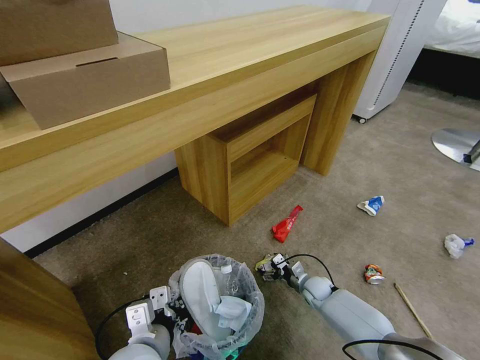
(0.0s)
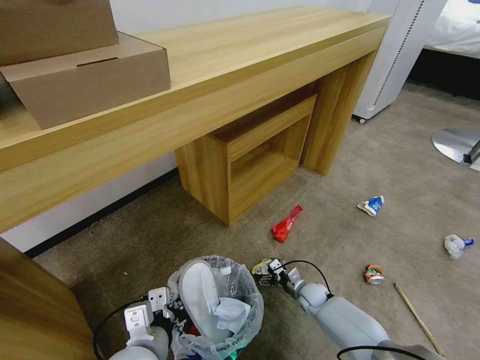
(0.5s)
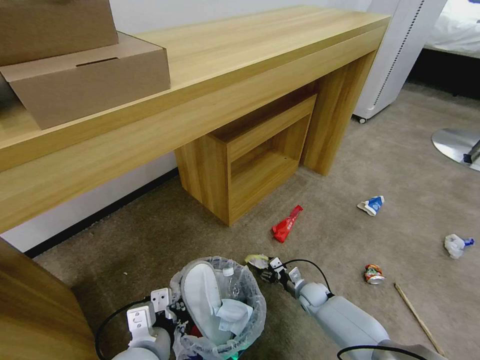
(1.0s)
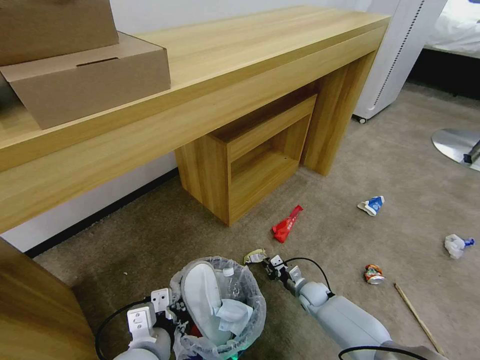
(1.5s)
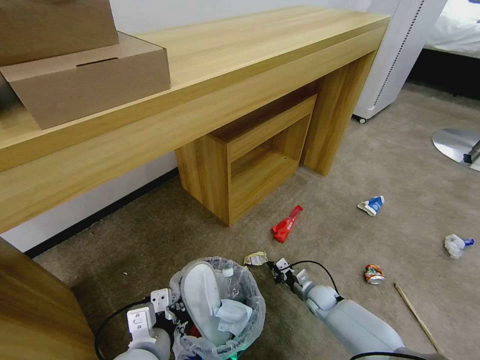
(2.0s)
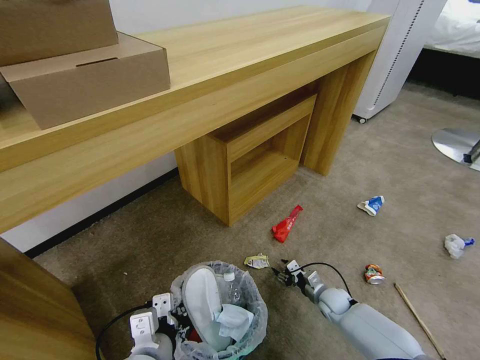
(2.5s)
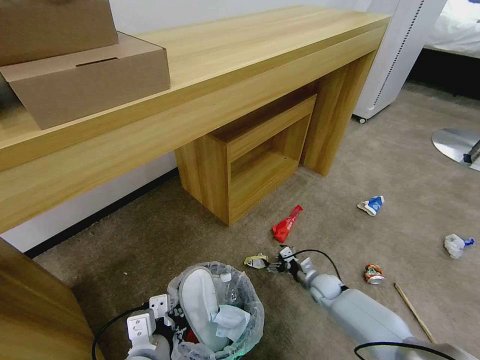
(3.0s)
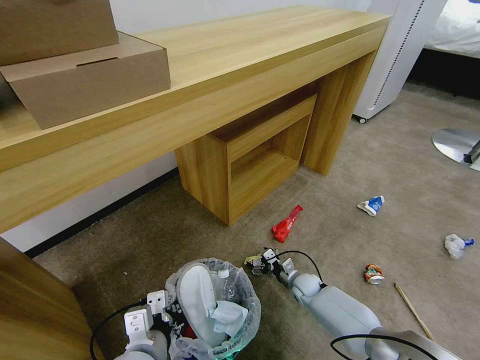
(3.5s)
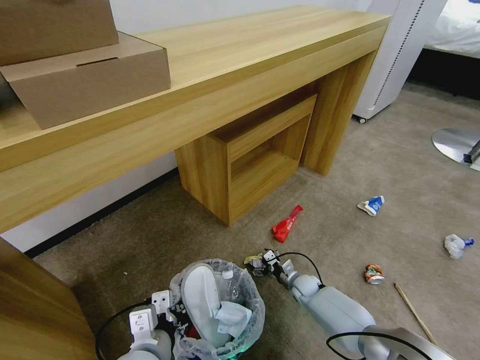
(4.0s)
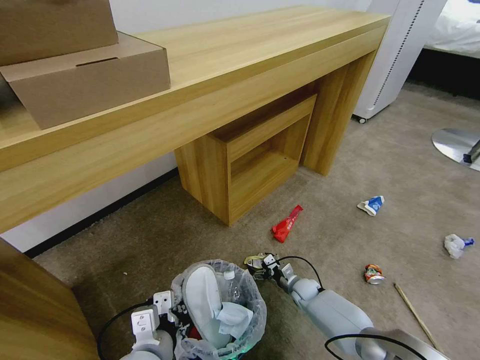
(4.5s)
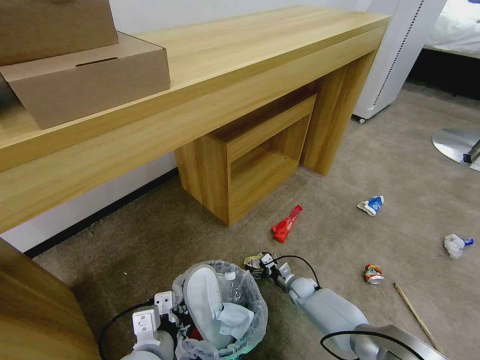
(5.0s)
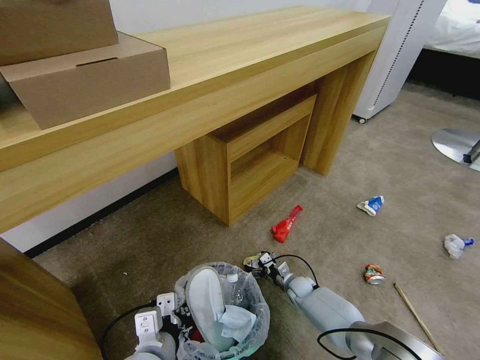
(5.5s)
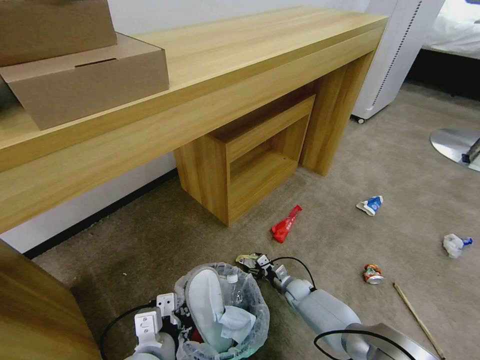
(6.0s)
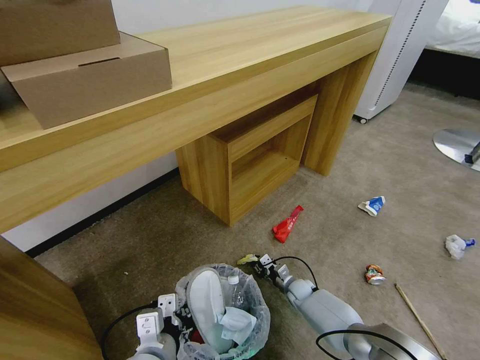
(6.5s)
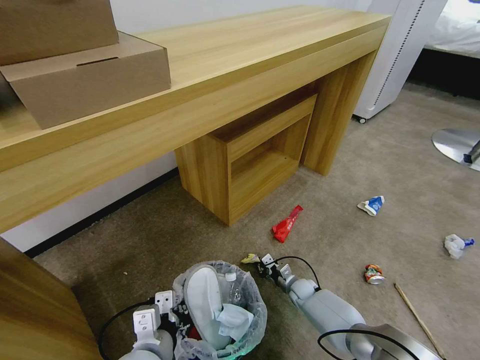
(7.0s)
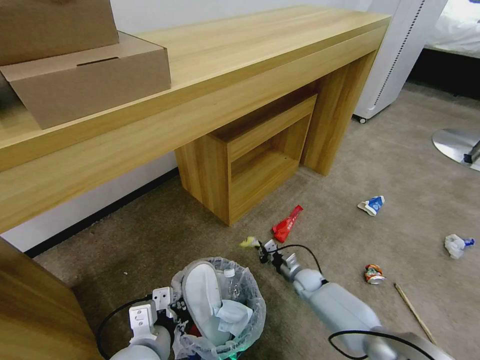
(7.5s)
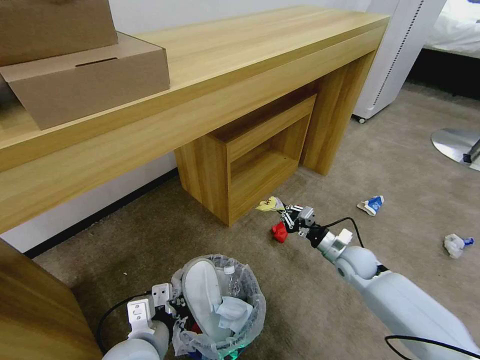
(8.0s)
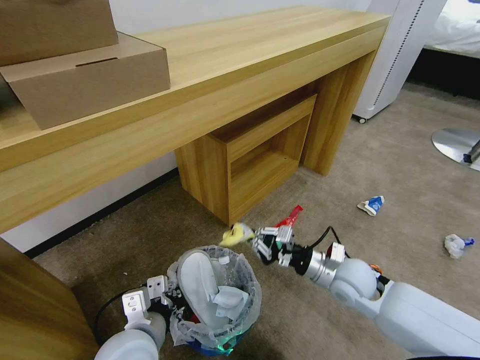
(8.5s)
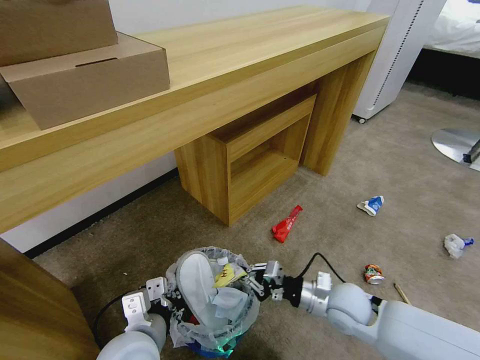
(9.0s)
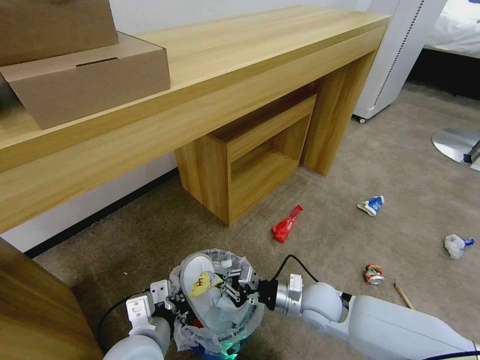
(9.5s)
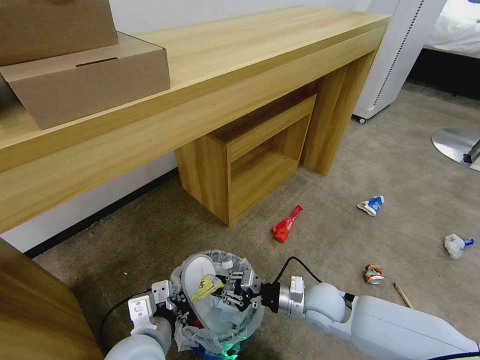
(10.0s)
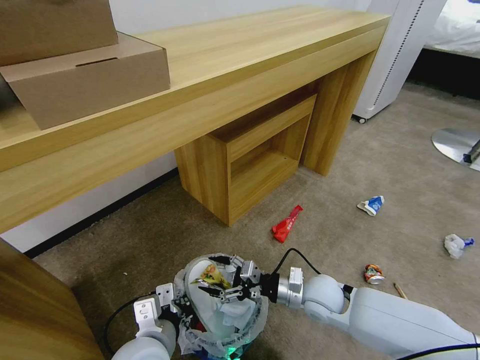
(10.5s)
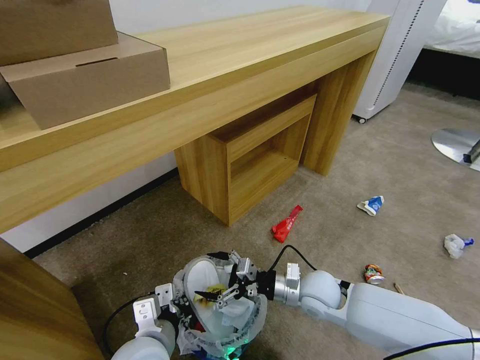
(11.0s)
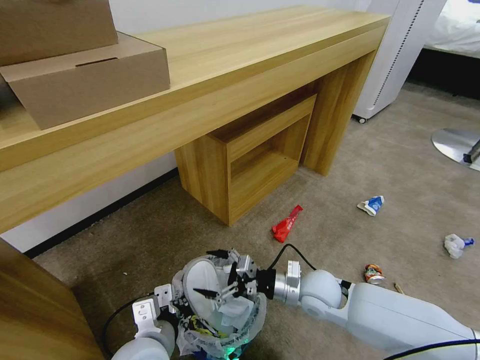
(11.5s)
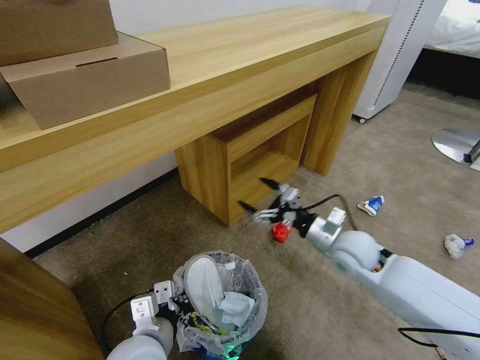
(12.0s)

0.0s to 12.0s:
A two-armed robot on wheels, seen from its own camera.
Task of the whole recording: Pick up the trash bin and place the garbage on the floor into it.
0.0s to 2.0s: The right gripper closes its fingers.
2.0s to 4.0s: The right gripper opens its fingers.
4.0s to 6.0s: The grippers stay close to where they were, moving slightly.
6.0s to 8.0s: The right gripper heads upward and to the right, covering about 25 cm, and closes.
8.0s to 10.0s: The right gripper goes roughly 15 cm to the left and backward.
10.0s to 12.0s: The right gripper shifts about 15 cm upward, forward and to the right, and opens up.

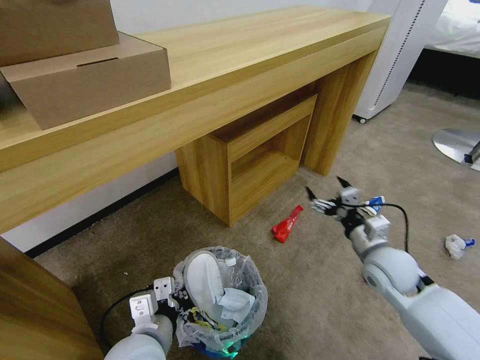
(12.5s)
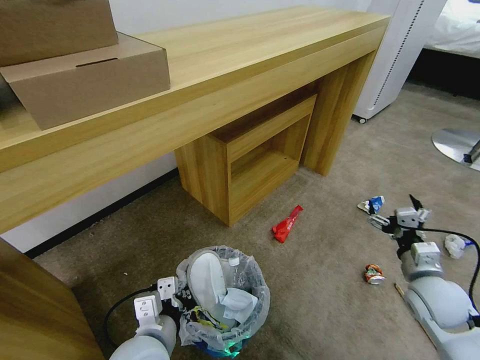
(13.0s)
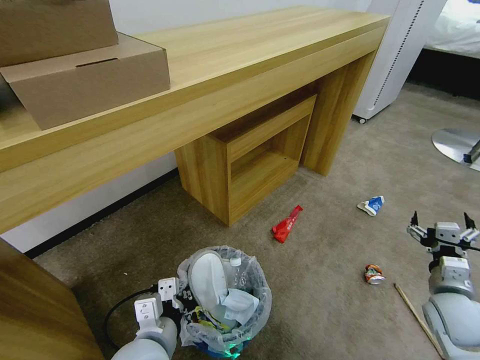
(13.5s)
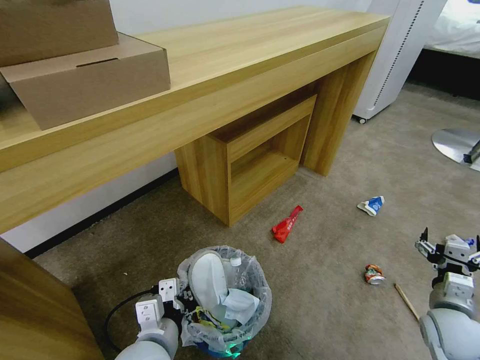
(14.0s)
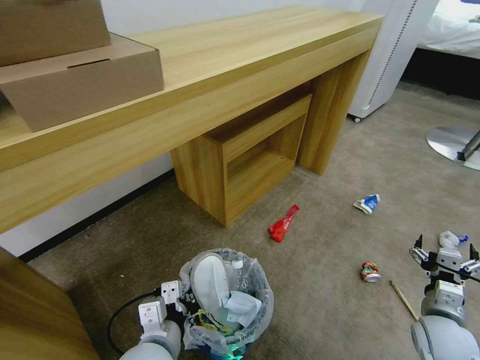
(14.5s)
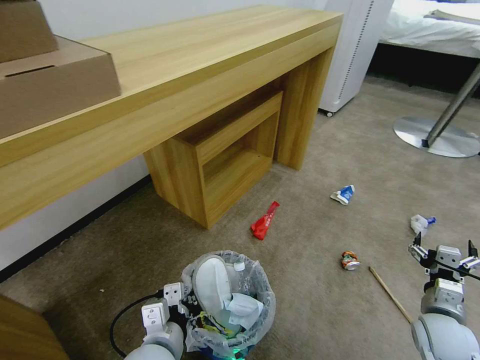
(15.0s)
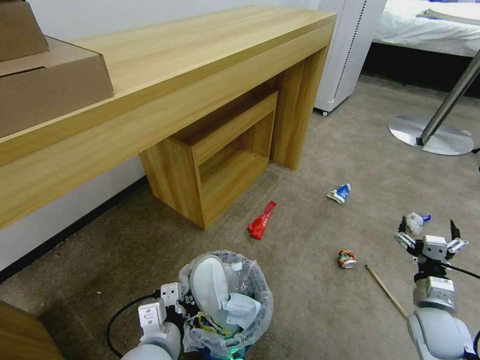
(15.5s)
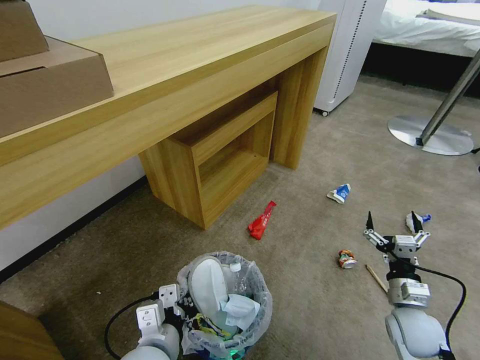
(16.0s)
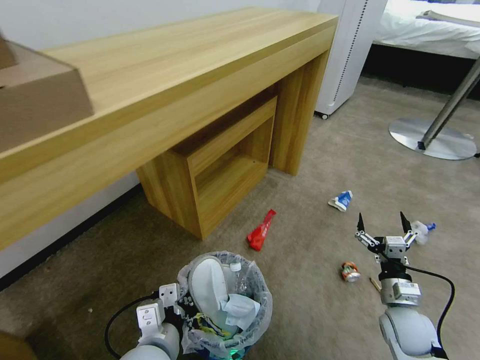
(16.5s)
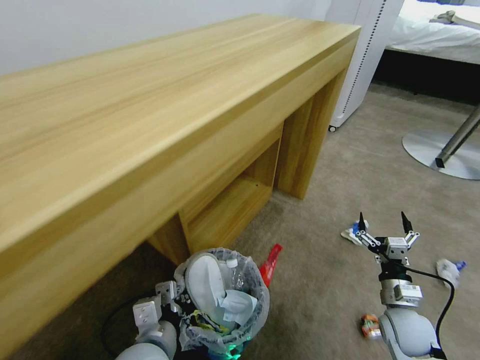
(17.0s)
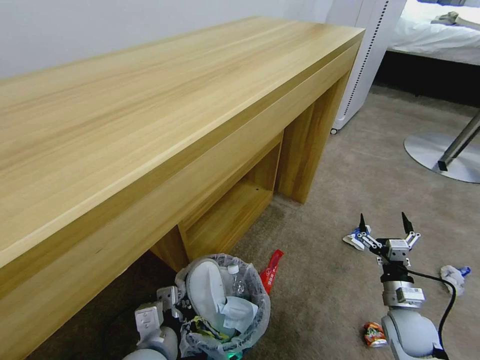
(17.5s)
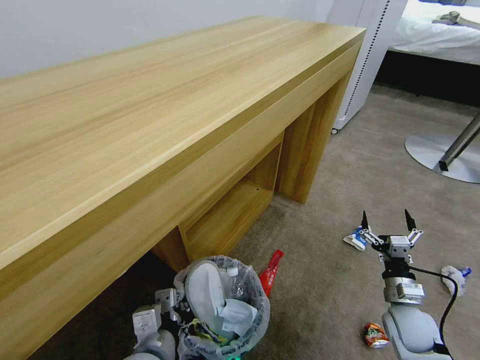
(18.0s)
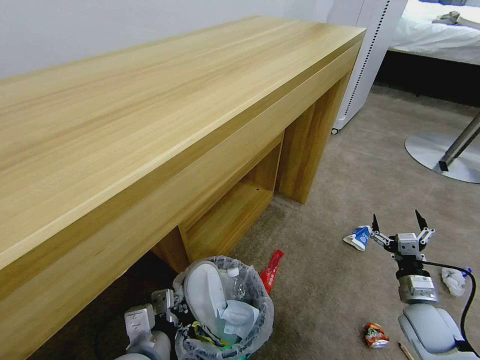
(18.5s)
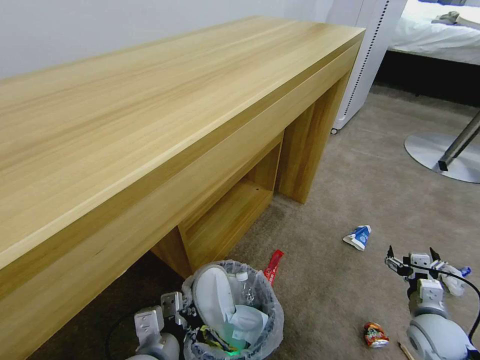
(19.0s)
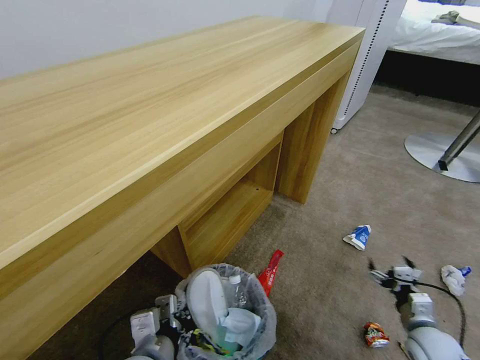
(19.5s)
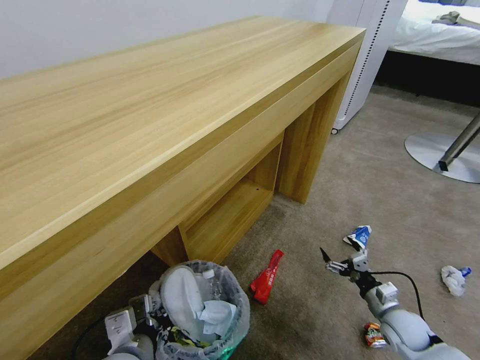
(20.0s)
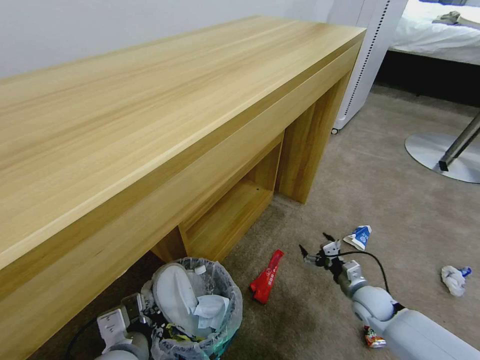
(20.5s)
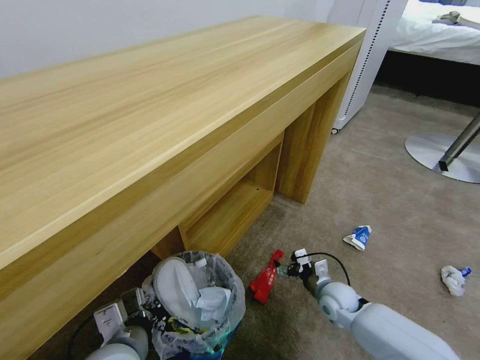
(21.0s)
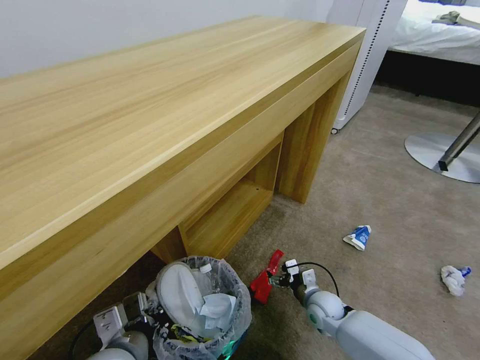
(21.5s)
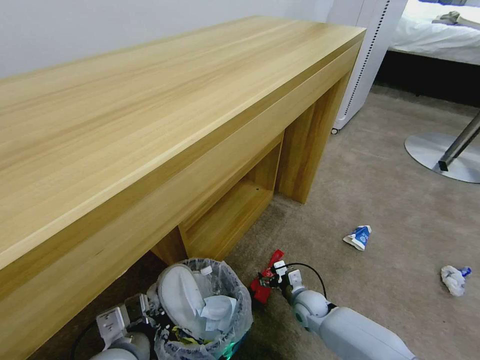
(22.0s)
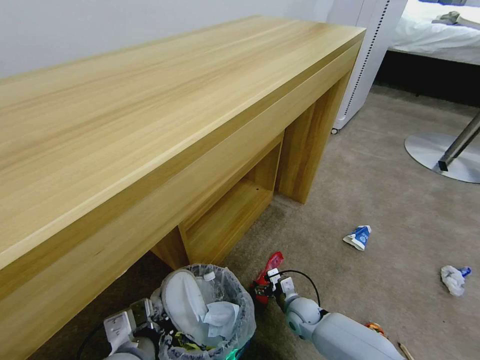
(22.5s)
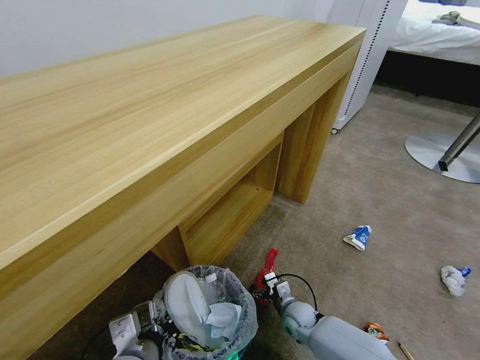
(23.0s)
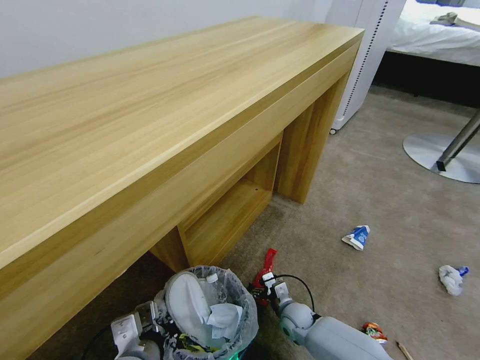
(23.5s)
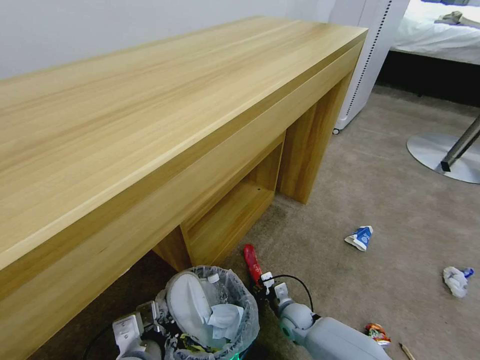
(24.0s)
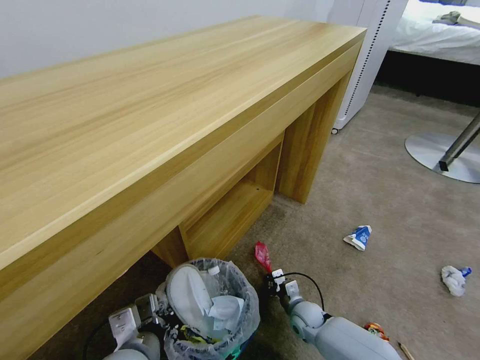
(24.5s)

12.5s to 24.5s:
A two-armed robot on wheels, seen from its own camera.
Task of the whole recording: Pick up the trash bin and place the garbage on the floor into it.
12.5s to 14.5s: The right gripper travels backward, to the right and downward by approximately 15 cm.
14.5s to 16.5s: The right gripper shifts by approximately 5 cm.
18.5s to 20.5s: The right gripper goes roughly 10 cm downward and forward.
20.5s to 22.5s: The right gripper is displaced to the left and downward by some 20 cm.
22.5s to 24.5s: The right gripper closes up.

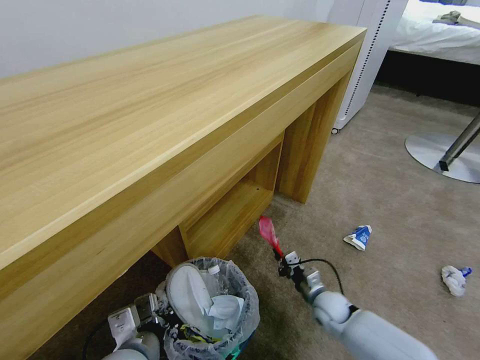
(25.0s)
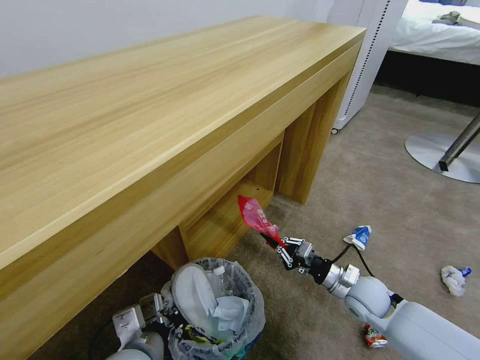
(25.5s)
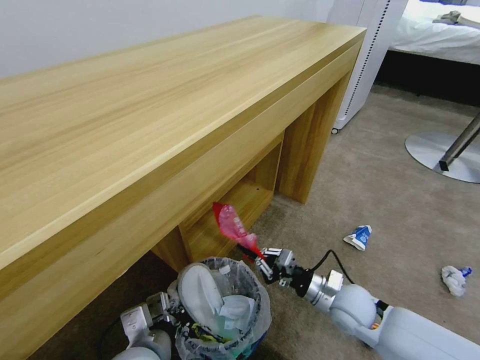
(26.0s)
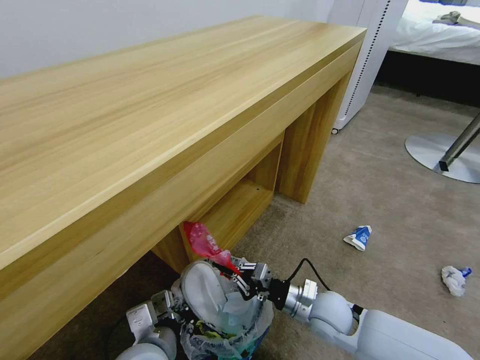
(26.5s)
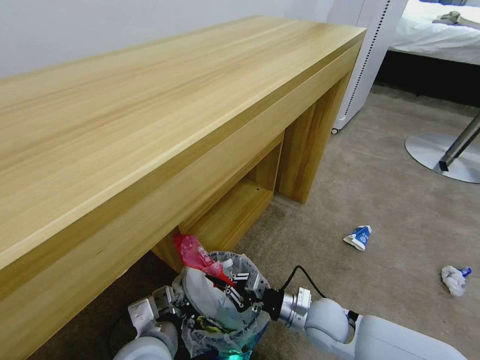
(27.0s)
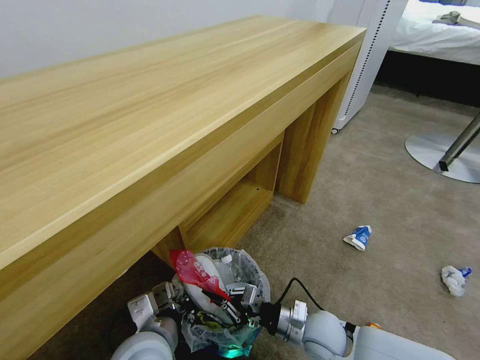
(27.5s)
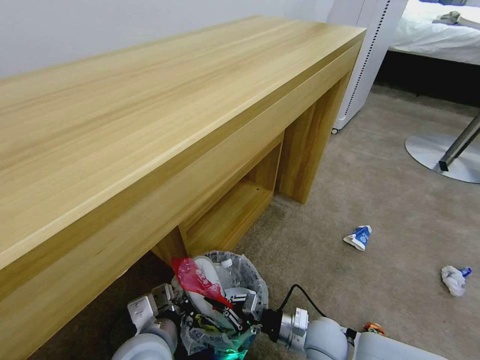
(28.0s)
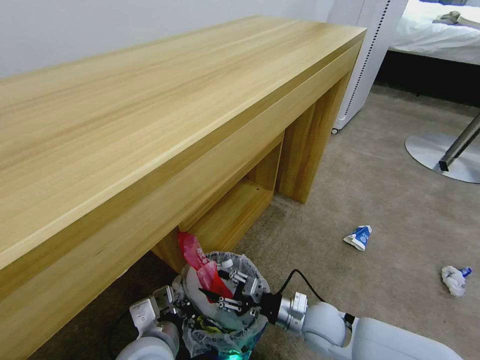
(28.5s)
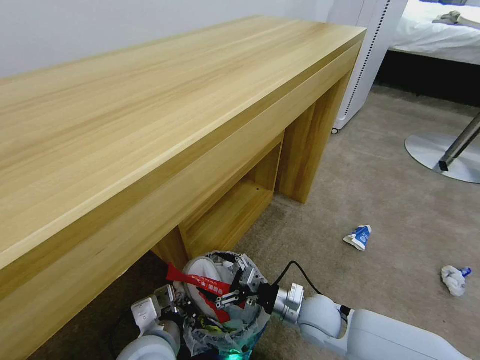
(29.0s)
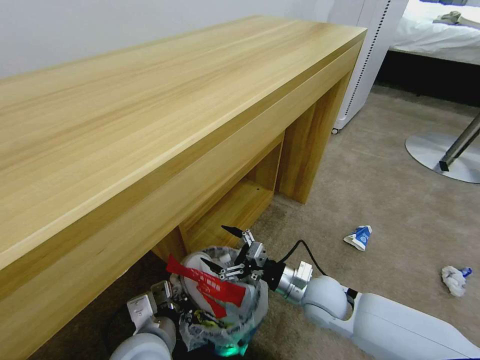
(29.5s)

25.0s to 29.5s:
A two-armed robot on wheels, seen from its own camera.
Task of the whole recording: Pick up the trash bin and place the garbage on the floor into it.
25.0s to 27.0s: The right gripper heads upward, backward and to the left, covering roughly 15 cm.
27.0s to 29.5s: The right gripper moves some 5 cm, and opens its fingers.
